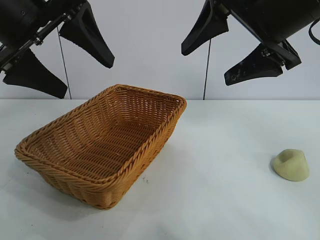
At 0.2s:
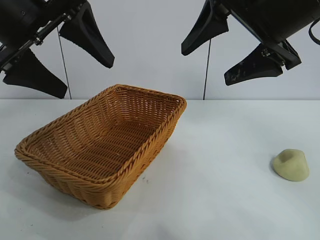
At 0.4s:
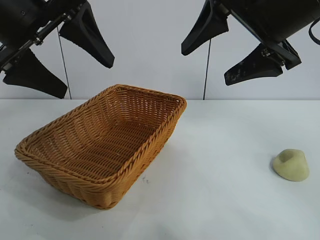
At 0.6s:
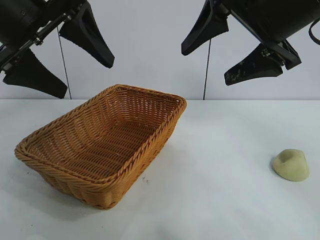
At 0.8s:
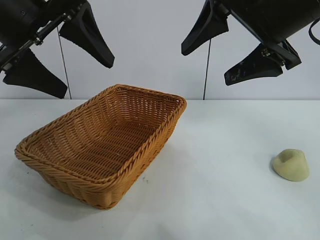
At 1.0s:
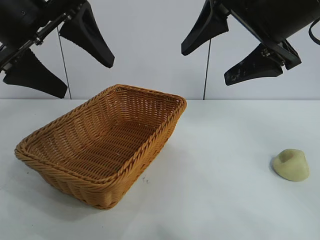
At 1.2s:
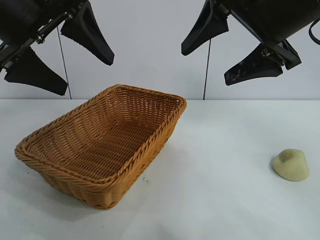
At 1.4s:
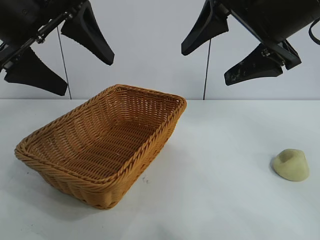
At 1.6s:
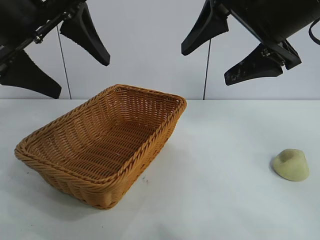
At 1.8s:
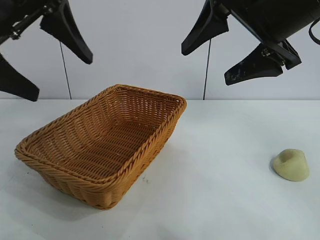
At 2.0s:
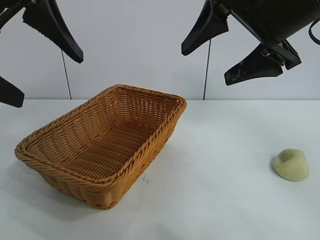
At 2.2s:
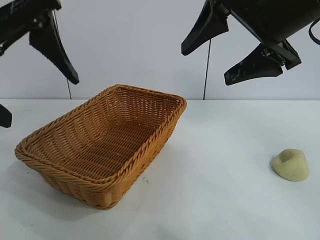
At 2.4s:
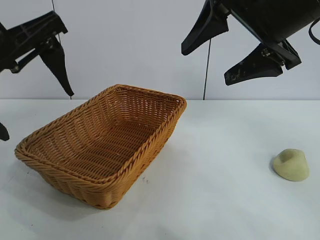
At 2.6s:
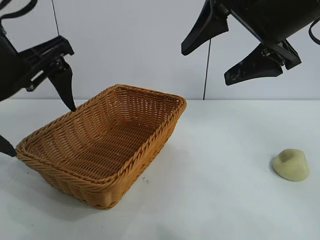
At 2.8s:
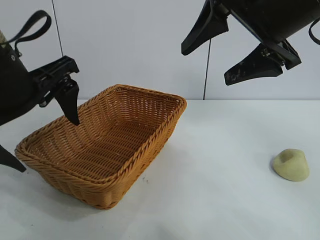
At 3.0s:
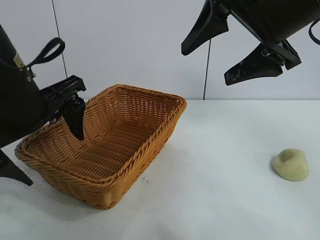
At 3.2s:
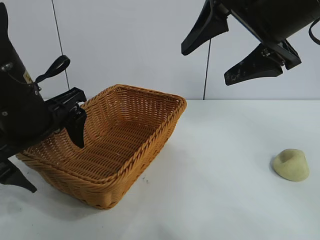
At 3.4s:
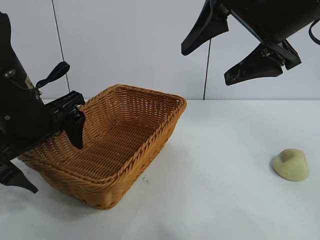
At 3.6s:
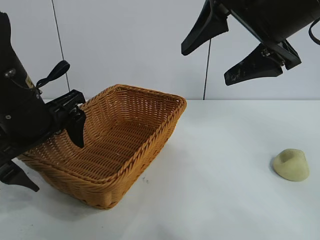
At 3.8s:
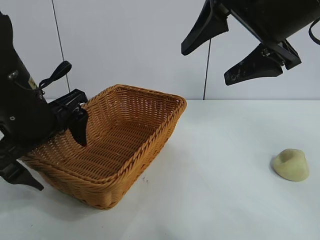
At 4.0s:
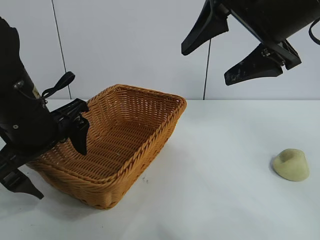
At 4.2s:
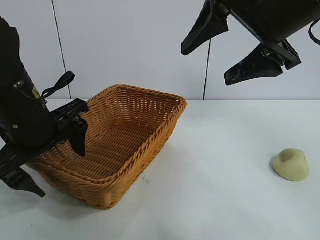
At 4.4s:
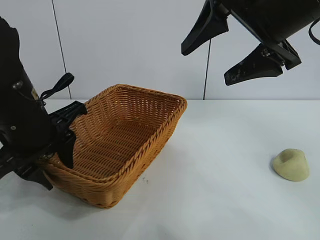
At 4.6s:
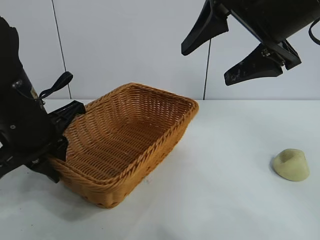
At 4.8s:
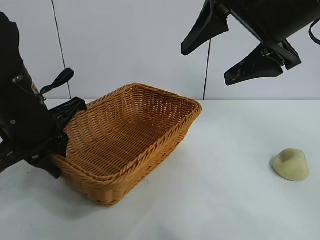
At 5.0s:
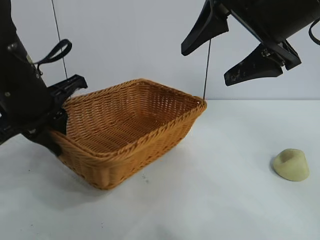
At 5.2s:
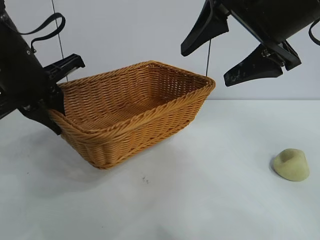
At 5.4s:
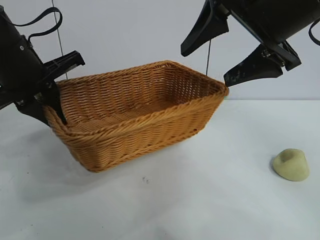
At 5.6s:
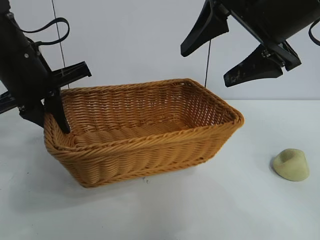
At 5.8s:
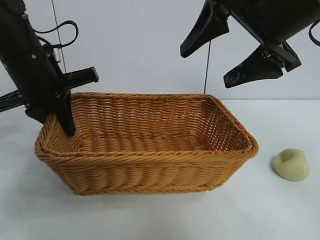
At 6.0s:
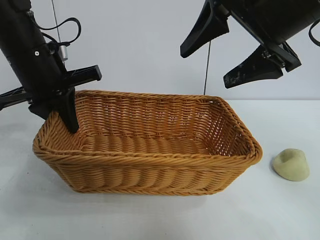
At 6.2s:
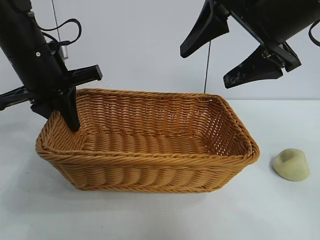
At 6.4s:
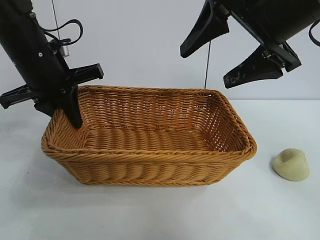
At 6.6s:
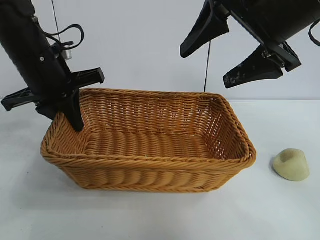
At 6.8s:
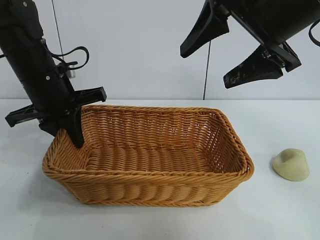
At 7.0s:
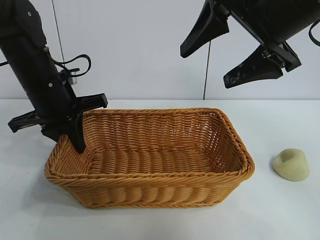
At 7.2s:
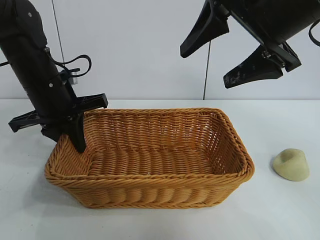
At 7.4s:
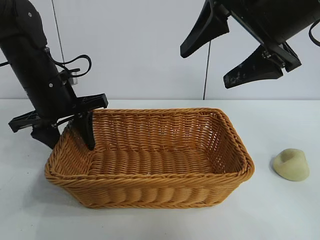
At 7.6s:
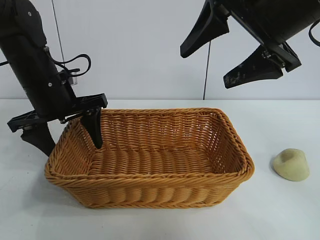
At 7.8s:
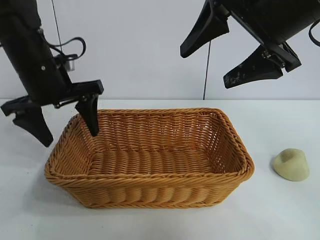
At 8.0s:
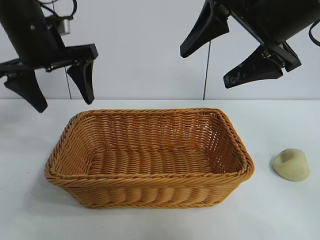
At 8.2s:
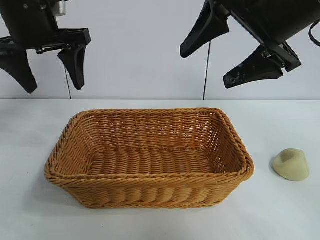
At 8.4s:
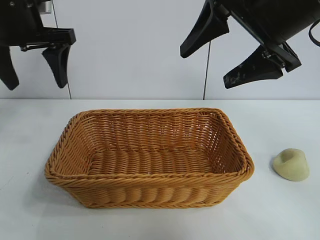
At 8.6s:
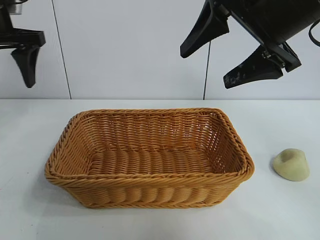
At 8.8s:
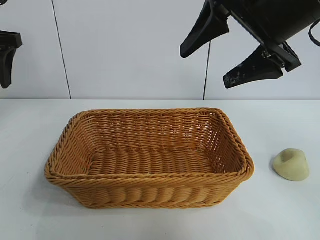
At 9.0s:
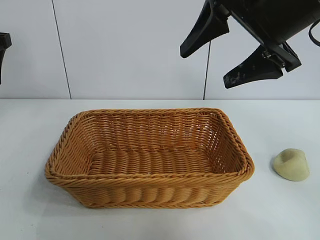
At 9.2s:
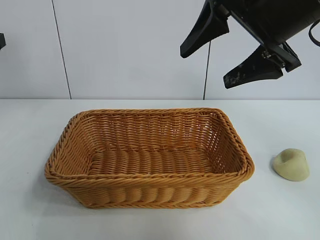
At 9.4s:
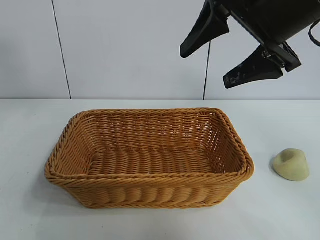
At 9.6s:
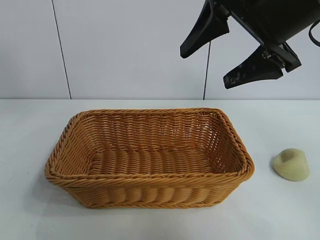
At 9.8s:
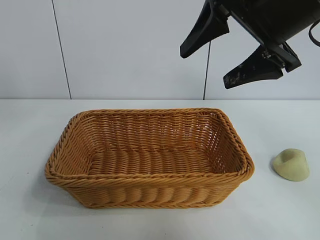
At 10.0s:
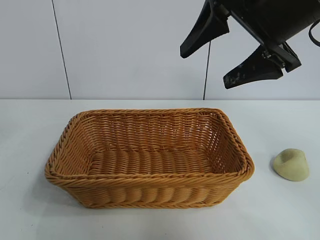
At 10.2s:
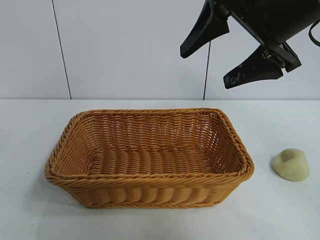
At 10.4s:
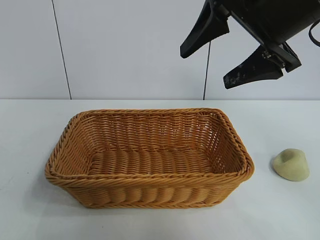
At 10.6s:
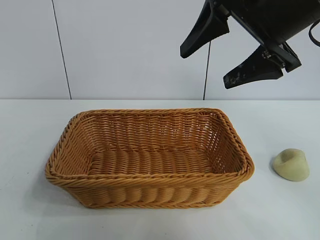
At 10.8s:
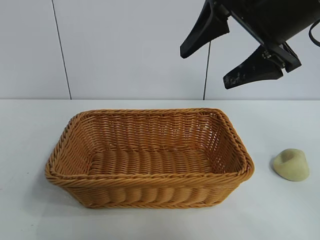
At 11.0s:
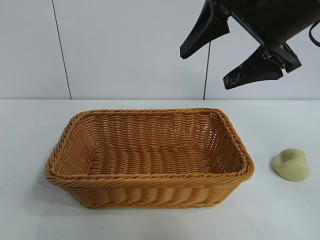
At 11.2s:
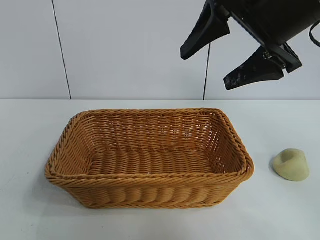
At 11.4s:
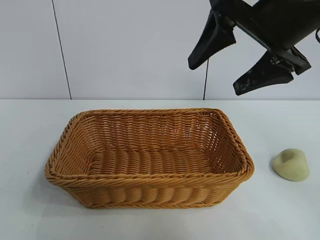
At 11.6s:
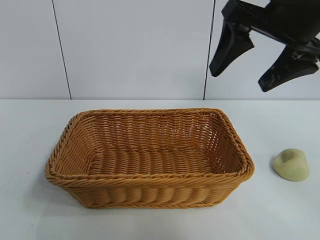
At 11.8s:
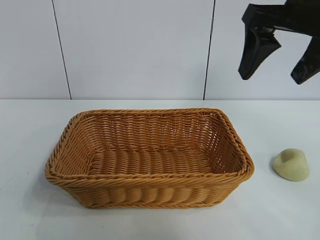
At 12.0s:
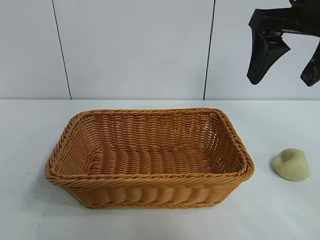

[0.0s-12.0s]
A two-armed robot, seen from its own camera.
Task of the whole recording: pick up the egg yolk pastry and put it into the basket.
Step, 1.0s to 4.6s: Grasp the basket with left gripper.
Step, 4.8s to 7.6s: Place the basket in the center of view with left gripper.

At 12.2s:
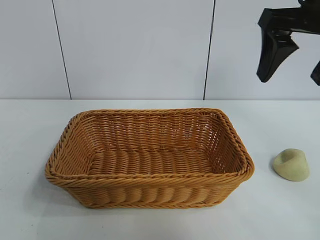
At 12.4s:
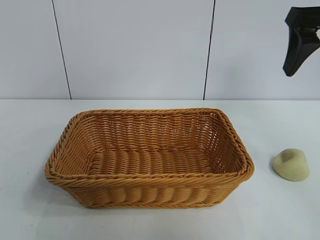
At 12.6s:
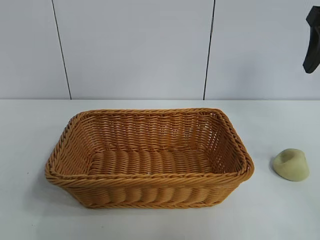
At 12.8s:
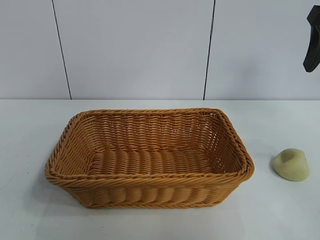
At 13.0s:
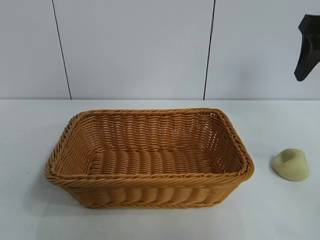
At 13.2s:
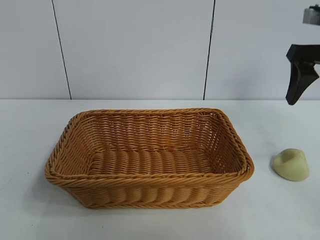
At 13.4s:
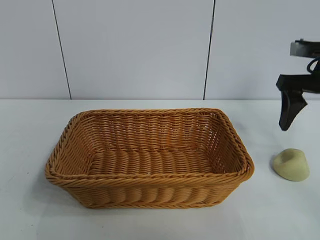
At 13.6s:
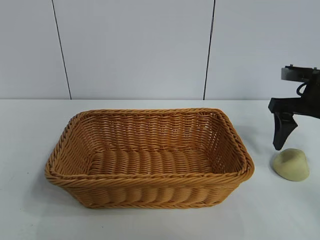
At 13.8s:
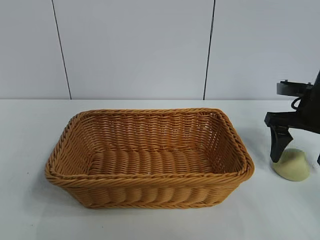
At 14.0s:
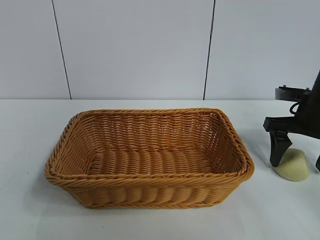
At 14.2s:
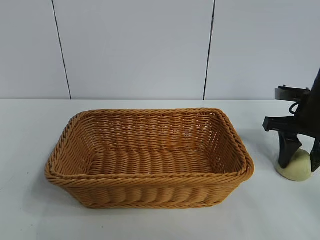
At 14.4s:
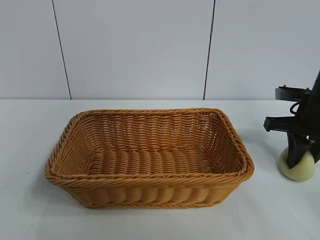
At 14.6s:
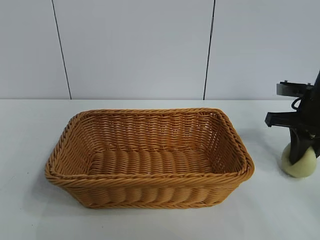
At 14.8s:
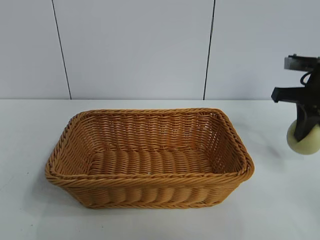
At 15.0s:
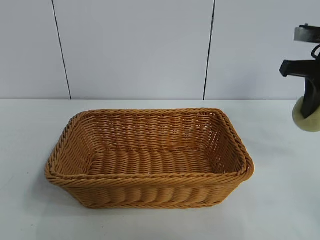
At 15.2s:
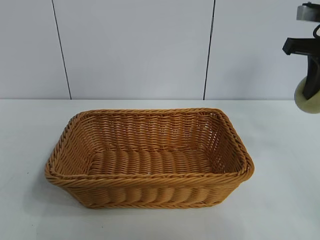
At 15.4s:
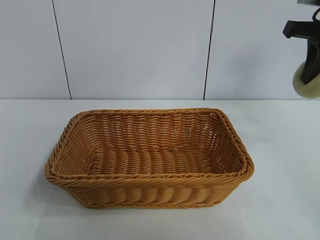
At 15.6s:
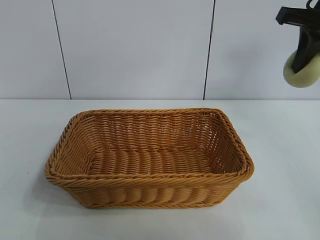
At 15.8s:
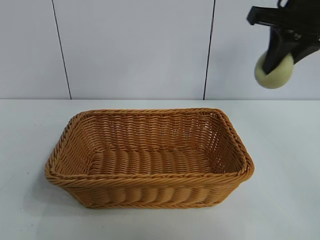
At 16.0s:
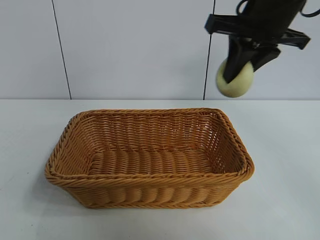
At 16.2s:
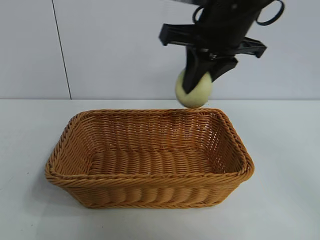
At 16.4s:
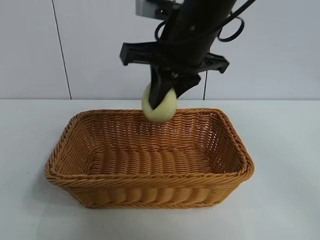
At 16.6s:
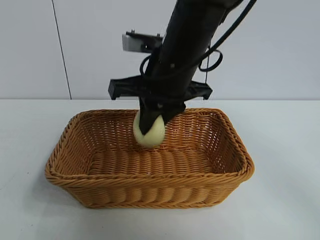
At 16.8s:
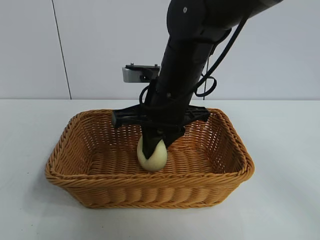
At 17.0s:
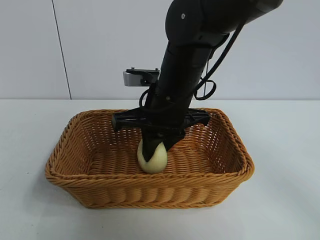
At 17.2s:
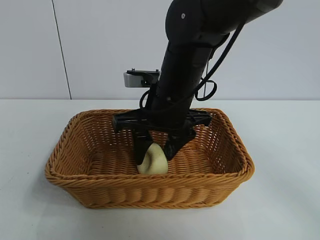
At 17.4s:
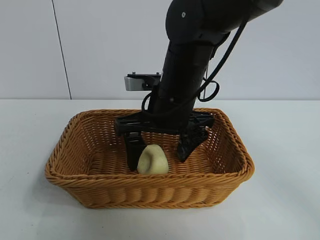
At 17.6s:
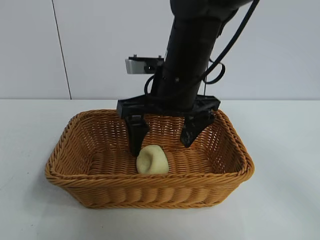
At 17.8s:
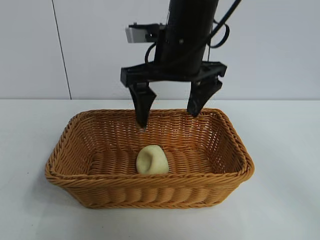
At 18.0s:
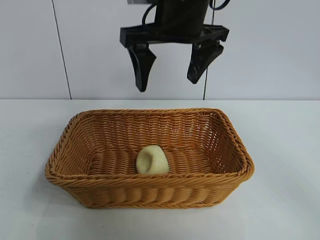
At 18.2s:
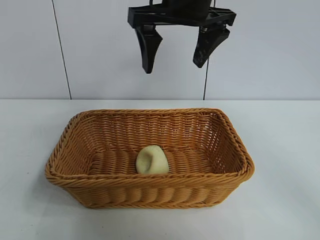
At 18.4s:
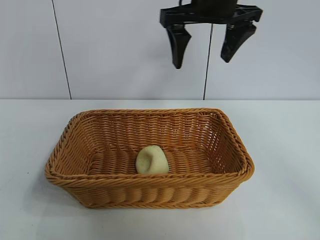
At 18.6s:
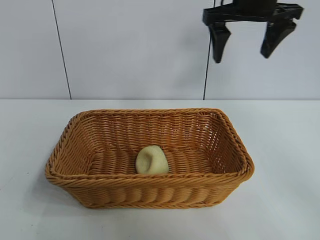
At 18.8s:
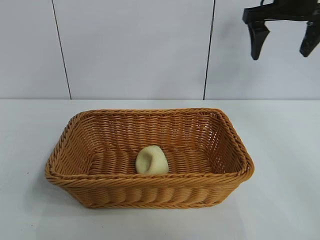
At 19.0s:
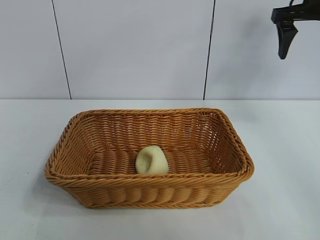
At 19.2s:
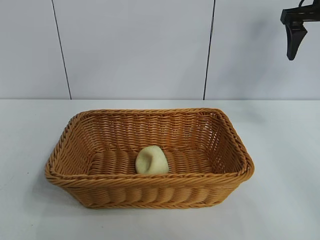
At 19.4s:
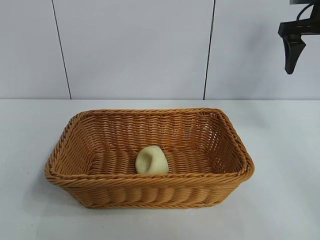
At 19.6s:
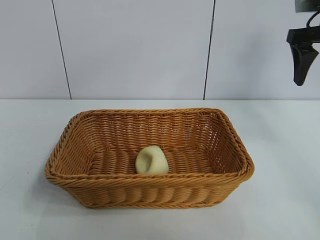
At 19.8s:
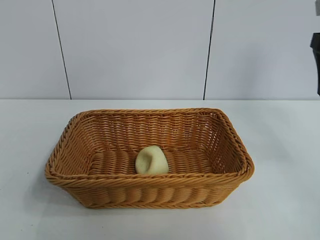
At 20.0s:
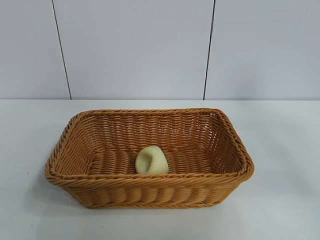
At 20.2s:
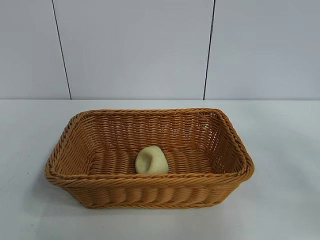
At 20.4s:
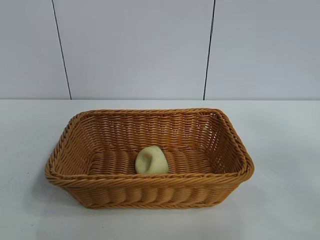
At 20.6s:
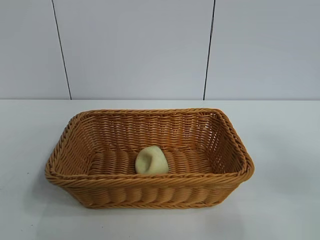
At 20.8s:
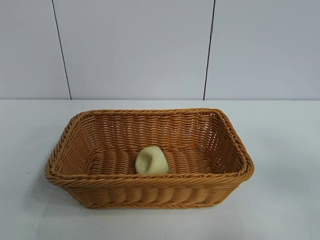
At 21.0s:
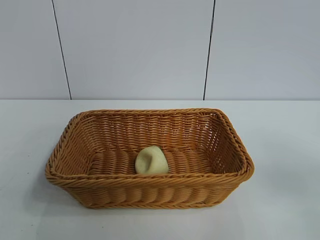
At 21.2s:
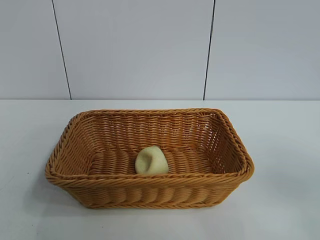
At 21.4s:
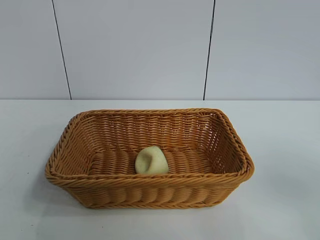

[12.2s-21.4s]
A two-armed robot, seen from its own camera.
Task of the whole recording: pick up the egg yolk pastry and put it into the basket.
Step, 12.2s to 14.4s: Grasp egg yolk pastry with right gripper.
Step, 14.6s to 17.4s: Place the egg yolk pastry in the basket with right gripper.

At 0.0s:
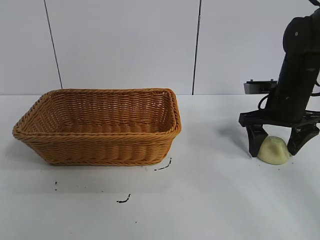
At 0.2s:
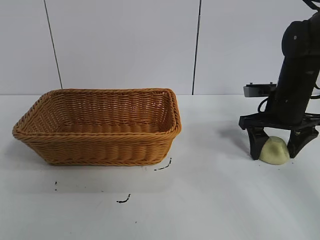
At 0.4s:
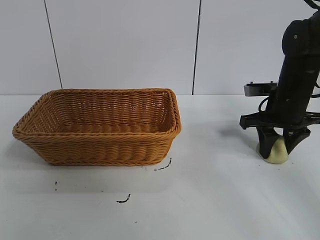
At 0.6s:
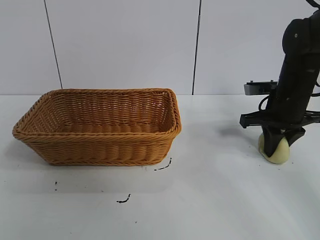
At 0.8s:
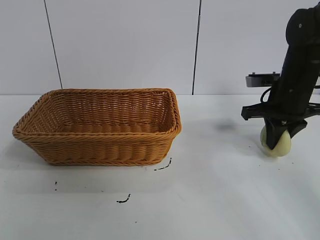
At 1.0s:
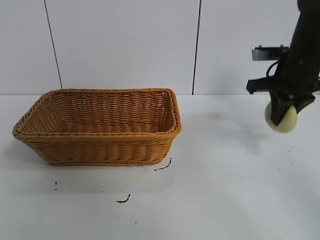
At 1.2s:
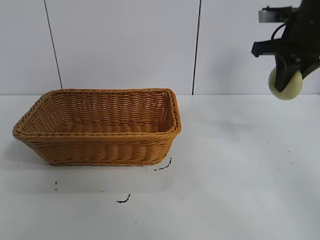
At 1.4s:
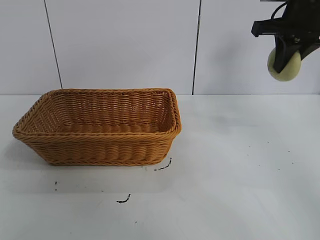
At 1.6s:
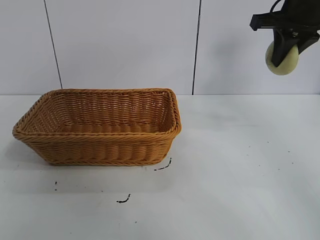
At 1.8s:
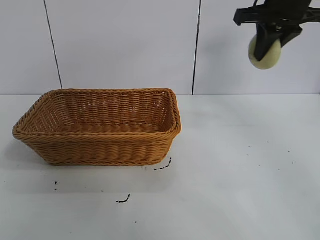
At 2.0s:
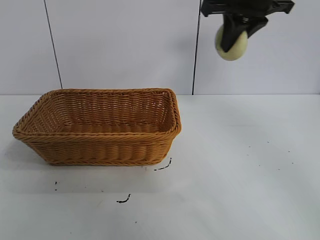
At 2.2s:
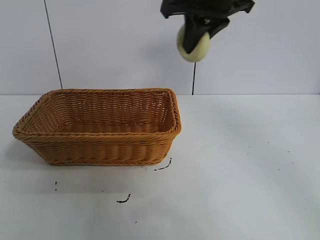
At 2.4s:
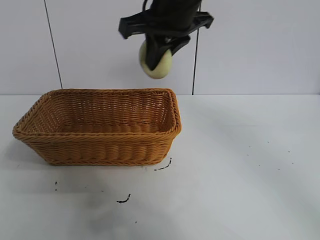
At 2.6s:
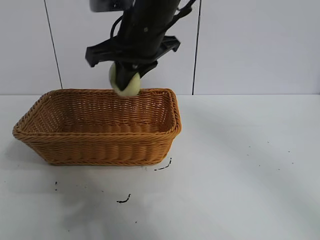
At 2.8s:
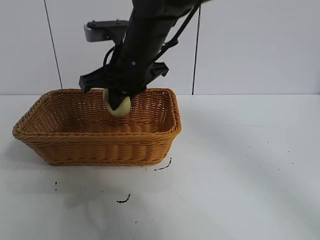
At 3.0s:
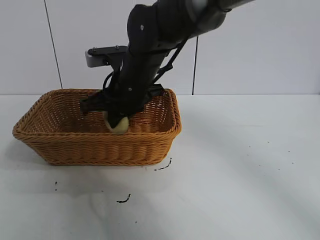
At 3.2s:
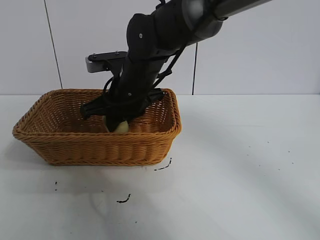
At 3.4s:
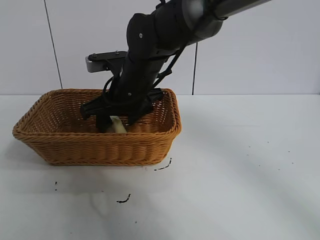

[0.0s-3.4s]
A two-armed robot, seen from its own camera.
Task of the whole recording: pick up the egg yolk pastry and put it into the basket.
Step, 0.6s to 3.2s: Place the egg yolk pastry in the basket with right gripper.
